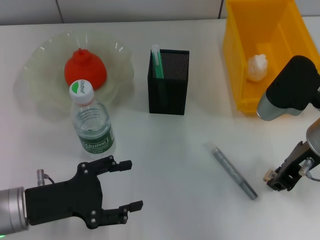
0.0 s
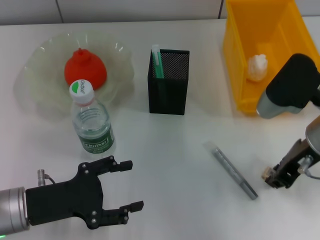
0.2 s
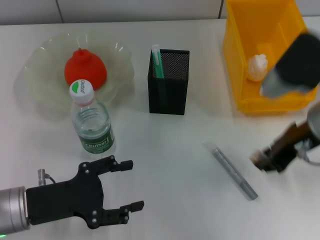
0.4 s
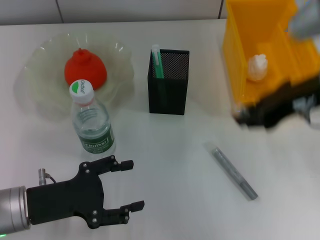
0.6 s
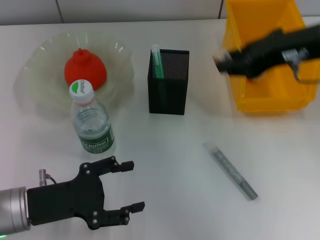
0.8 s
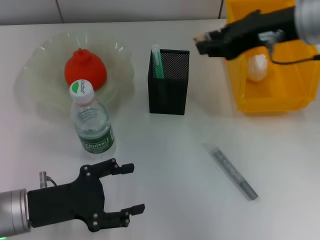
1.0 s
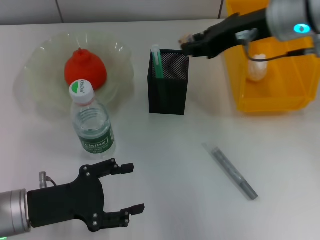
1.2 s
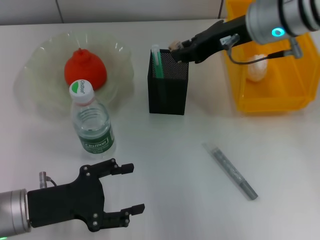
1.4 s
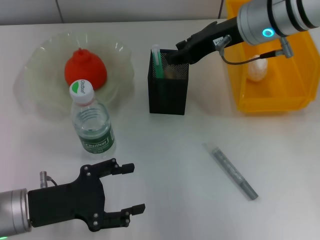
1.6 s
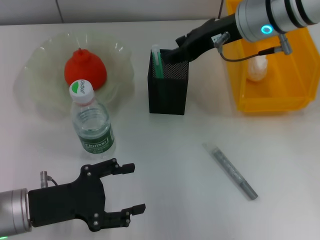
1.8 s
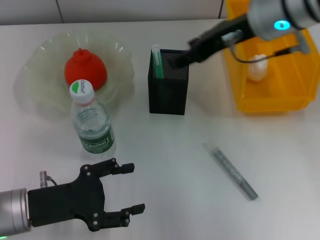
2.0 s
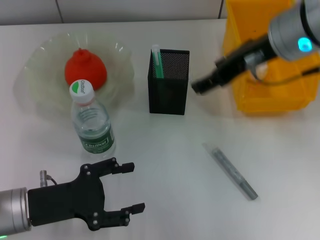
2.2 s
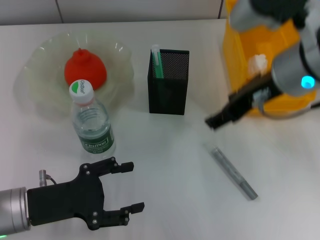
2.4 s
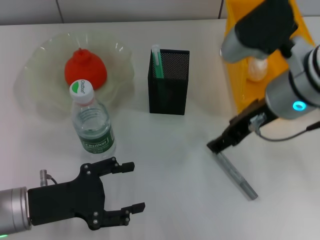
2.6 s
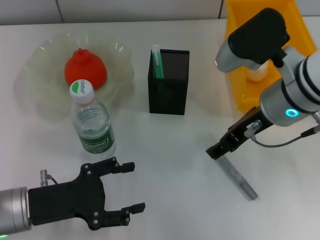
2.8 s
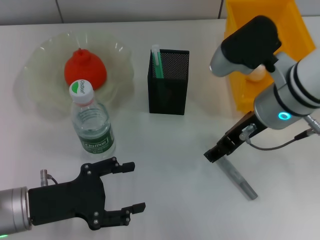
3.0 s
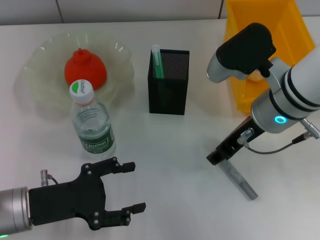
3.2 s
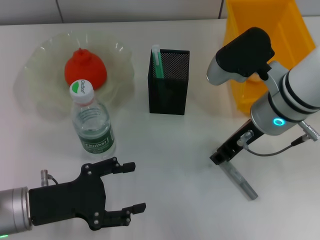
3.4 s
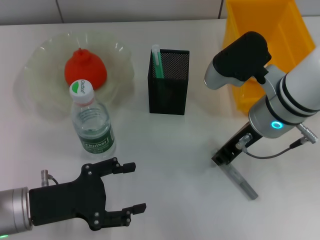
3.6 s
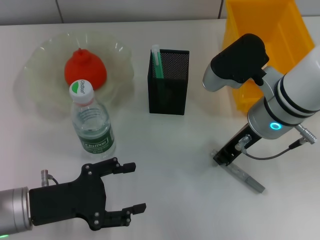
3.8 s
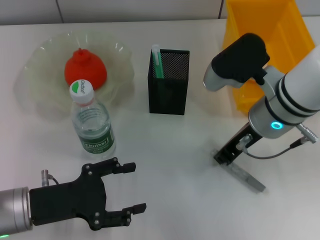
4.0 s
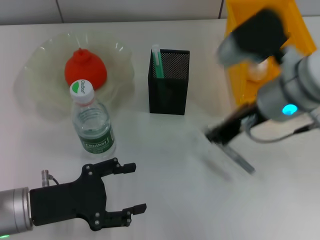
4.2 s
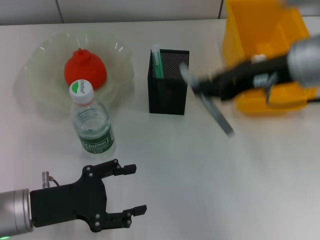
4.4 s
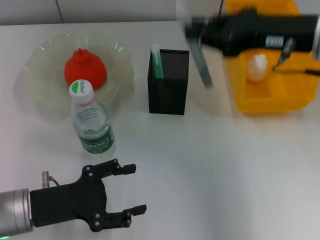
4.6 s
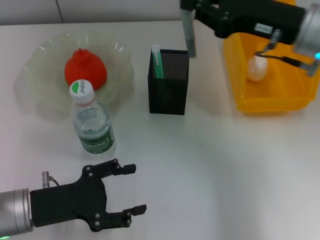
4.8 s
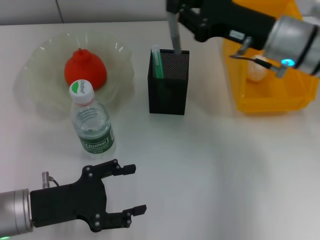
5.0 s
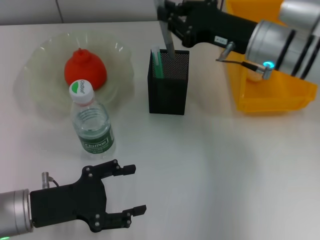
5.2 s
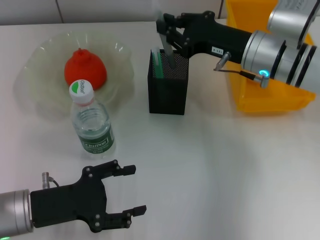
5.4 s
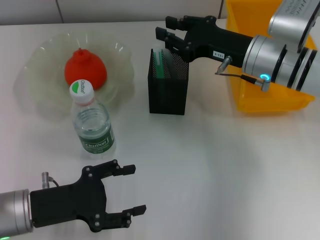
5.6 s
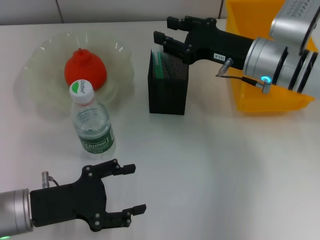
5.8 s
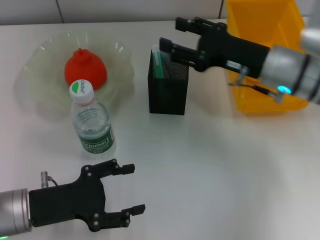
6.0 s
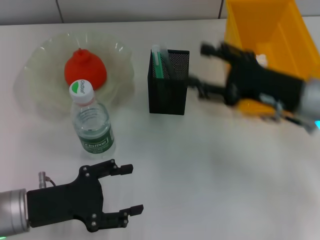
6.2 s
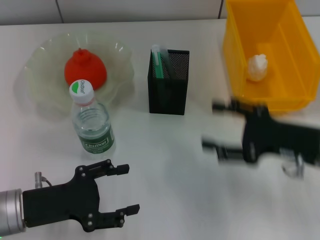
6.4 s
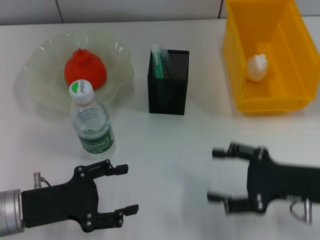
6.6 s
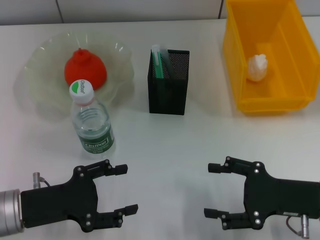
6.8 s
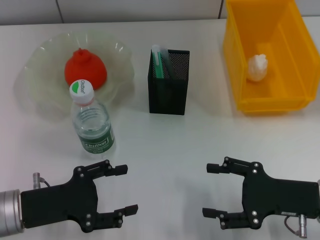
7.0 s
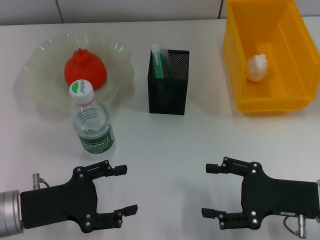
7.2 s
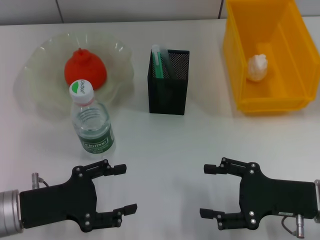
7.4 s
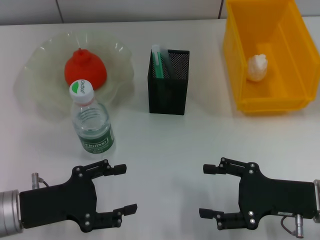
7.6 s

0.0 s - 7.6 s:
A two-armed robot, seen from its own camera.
Step, 0.2 s - 1.6 s: Put the eraser into the pen holder with the right hand.
Step, 1.8 s - 3.8 s: Grab the gray glue with the right hand.
Step, 4.0 s - 5.6 s: Place the gray glue into the pen holder with the right hand.
0.0 s - 1.6 s: The right gripper heads forward, to the left and upward, covering some 15 cm.
1.6 s - 3.0 s: The right gripper travels backward by some 10 cm, and opens.
3.0 s - 4.6 s: The right gripper shifts approximately 10 cm upward and to the right, and closes up.
4.6 s - 6.0 s: The right gripper shifts some 10 cm downward, and opens its fingers.
6.0 s - 7.6 s: The right gripper goes about 15 cm backward, downward and to the right, and opens.

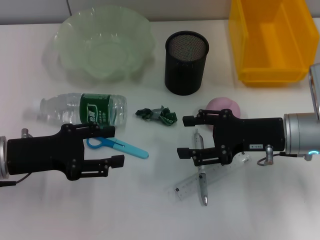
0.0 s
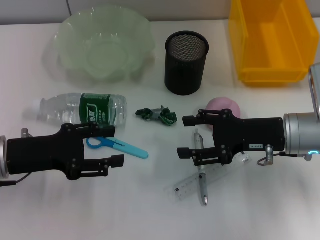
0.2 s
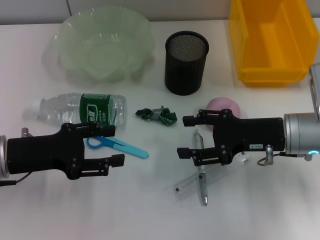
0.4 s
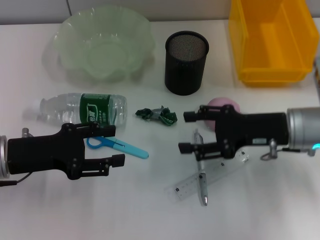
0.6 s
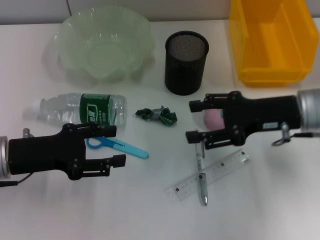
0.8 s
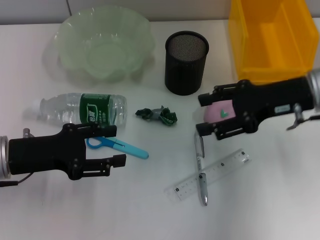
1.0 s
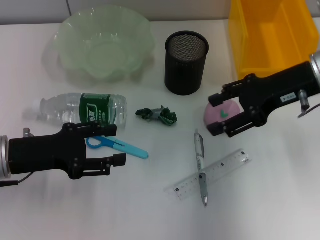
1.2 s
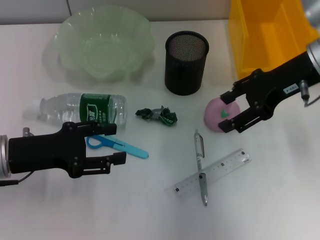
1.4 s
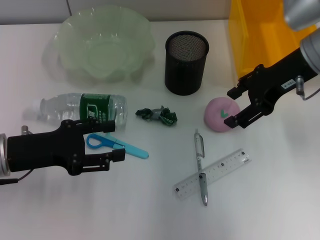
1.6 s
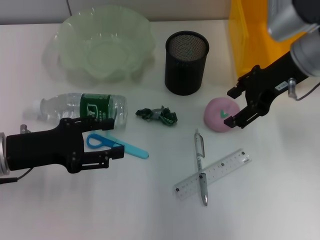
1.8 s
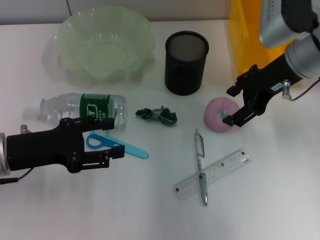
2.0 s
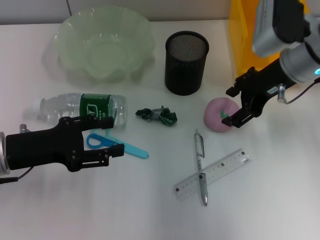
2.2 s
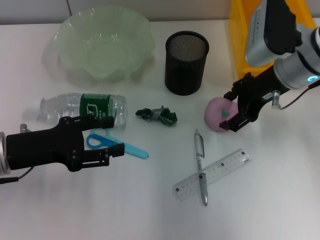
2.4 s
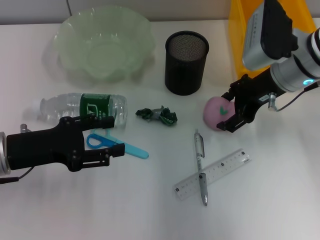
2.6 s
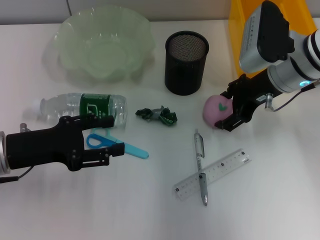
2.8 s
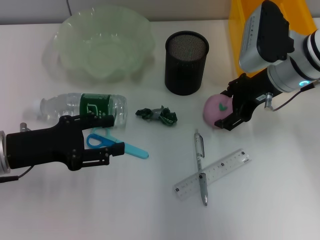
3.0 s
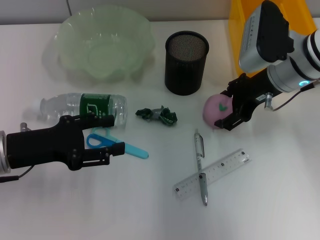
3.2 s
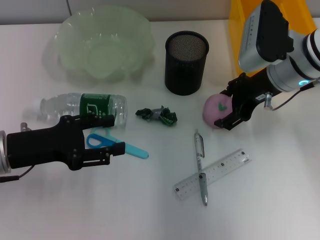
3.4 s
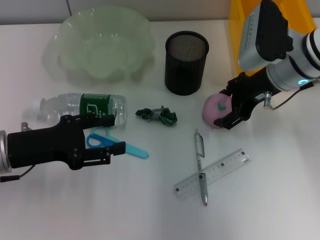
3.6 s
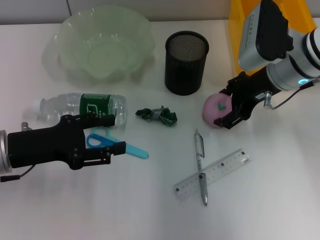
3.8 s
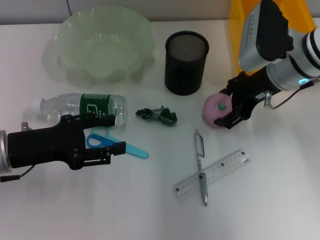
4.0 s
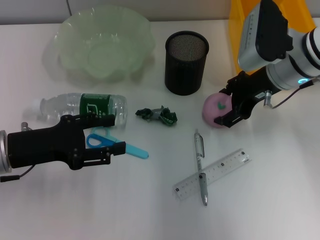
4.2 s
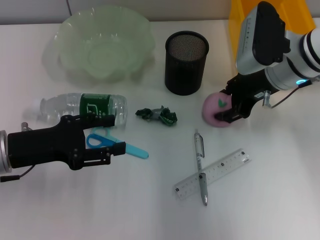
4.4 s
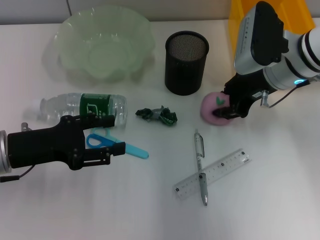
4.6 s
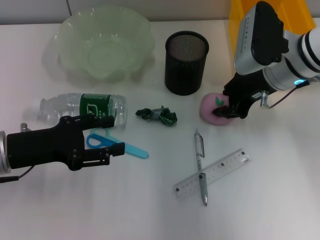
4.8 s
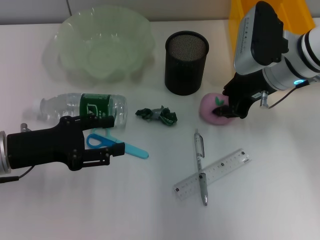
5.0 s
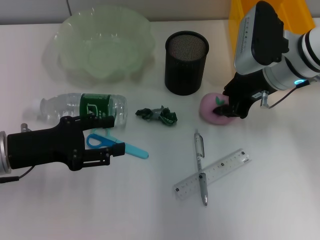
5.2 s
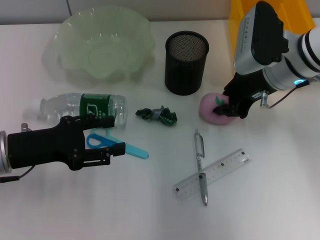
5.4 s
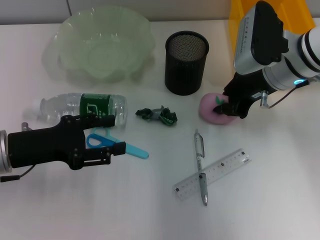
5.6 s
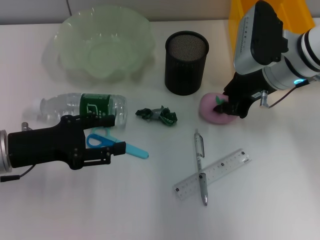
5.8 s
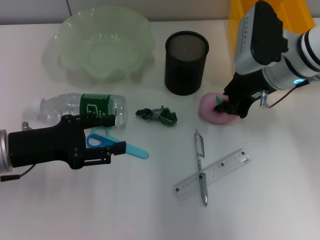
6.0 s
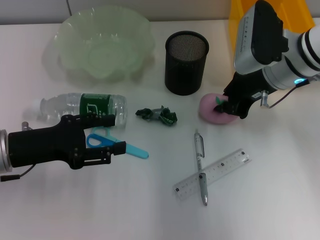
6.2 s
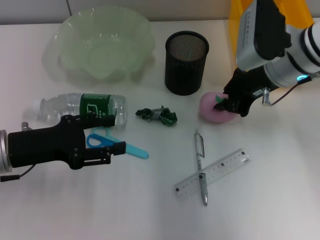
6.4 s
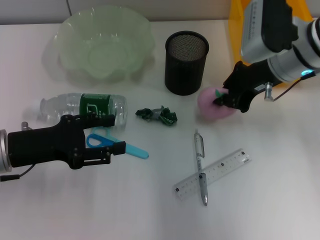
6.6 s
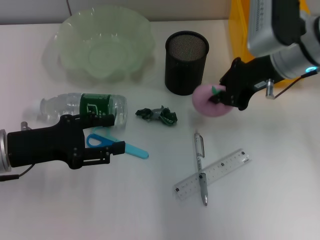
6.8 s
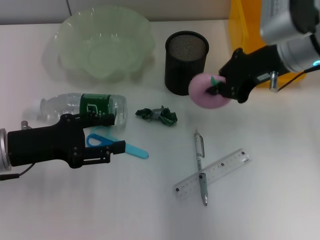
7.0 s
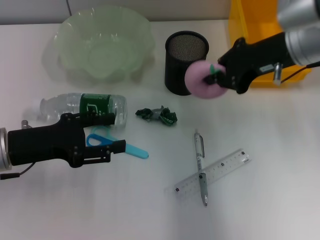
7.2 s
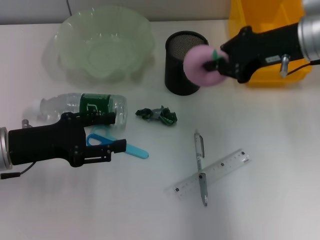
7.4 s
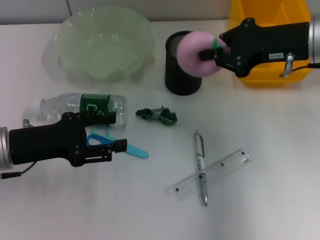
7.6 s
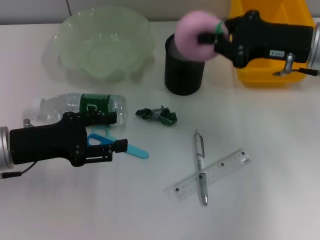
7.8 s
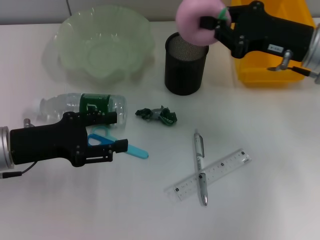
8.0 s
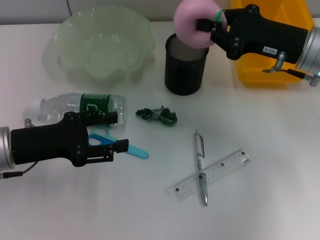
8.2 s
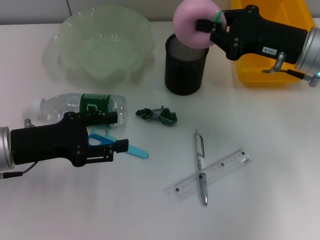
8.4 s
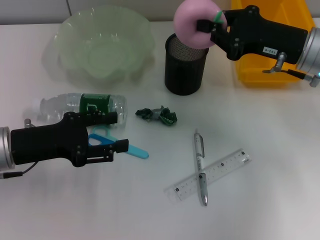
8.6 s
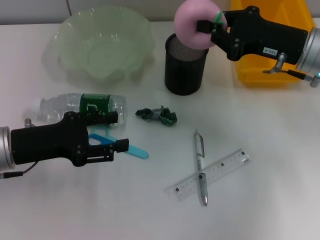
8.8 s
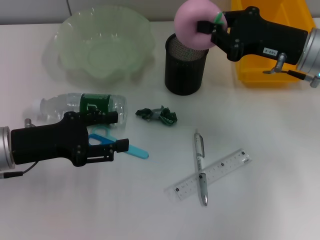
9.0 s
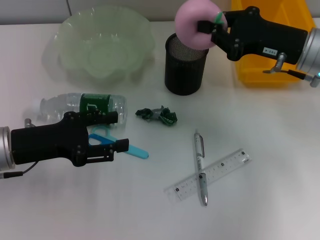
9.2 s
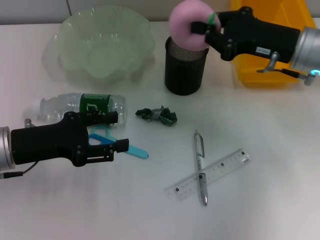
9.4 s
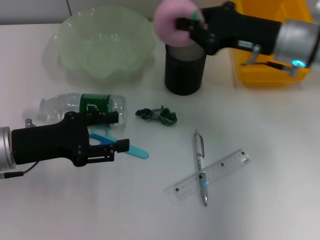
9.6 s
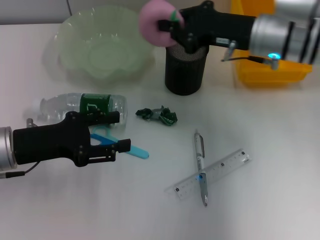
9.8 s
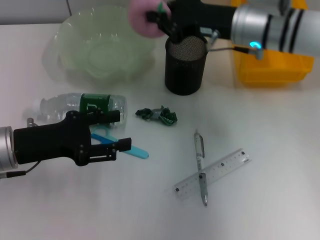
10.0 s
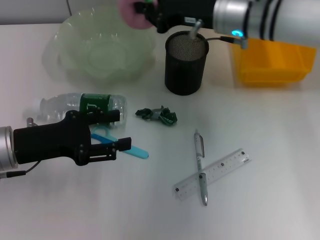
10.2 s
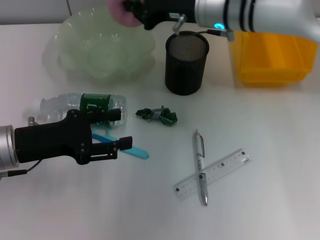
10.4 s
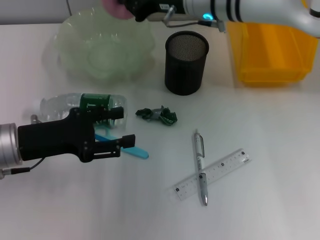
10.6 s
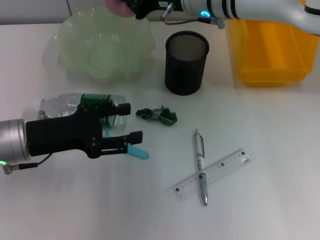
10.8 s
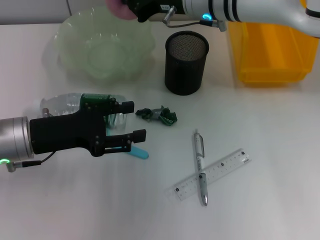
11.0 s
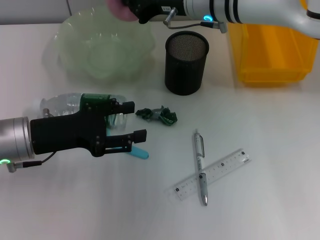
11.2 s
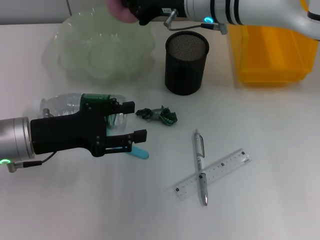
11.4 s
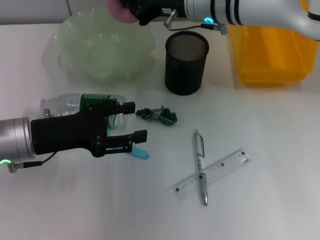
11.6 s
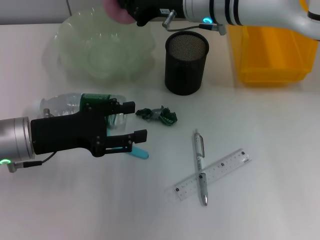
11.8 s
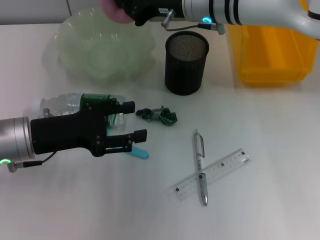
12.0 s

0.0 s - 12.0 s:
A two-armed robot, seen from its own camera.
Step, 0.0 s - 5.0 s: Grab the peach with the right hand.
0.0 s - 1.6 s: The right gripper is displaced upward and forward by approximately 15 cm.
1.6 s - 3.0 s: The right gripper moves downward, some 5 cm.
3.0 s - 4.4 s: Both grippers stay put.
4.4 s - 6.0 s: The right gripper closes its fingers.
6.0 s - 7.6 s: The right gripper is displaced upward by roughly 5 cm.
9.0 s - 10.4 s: The right gripper travels to the left and forward by roughly 15 cm.
10.4 s - 12.0 s: The grippers make only small movements.

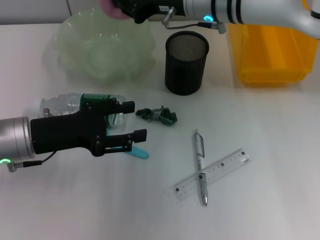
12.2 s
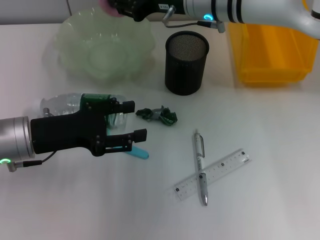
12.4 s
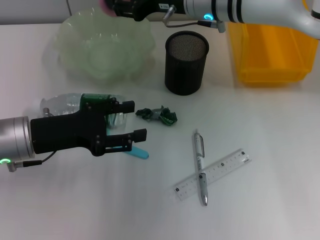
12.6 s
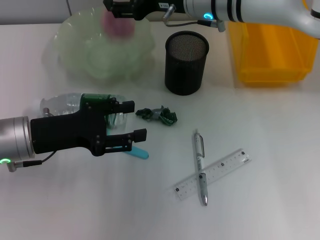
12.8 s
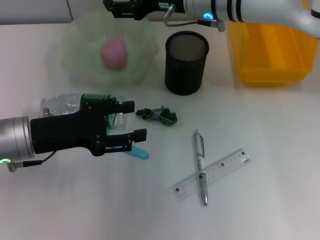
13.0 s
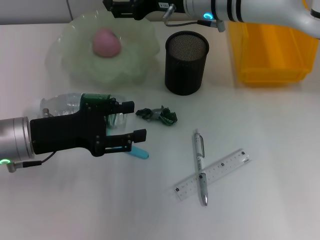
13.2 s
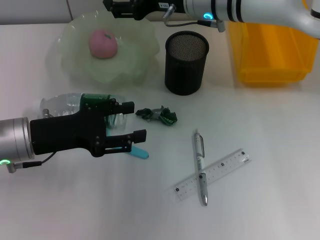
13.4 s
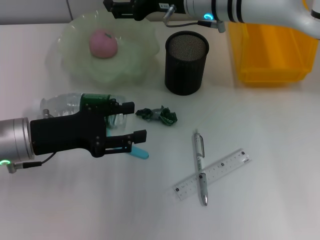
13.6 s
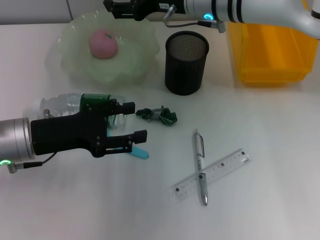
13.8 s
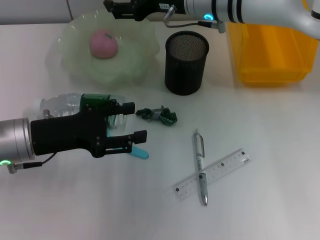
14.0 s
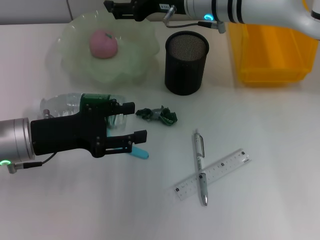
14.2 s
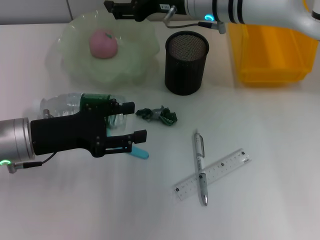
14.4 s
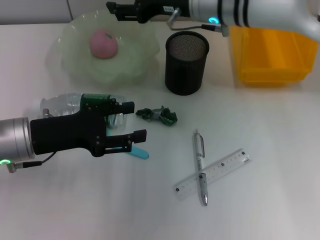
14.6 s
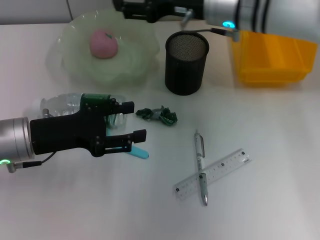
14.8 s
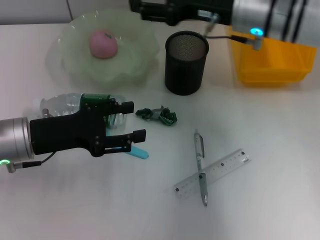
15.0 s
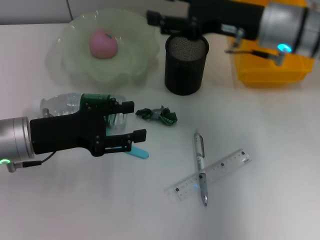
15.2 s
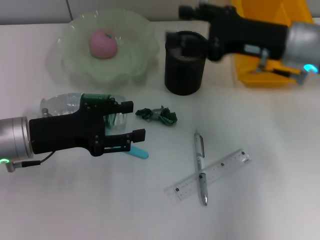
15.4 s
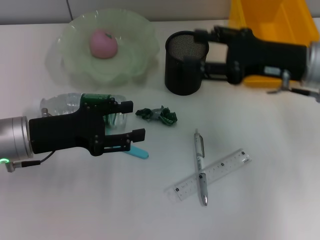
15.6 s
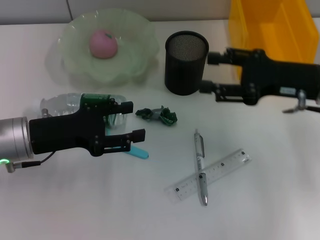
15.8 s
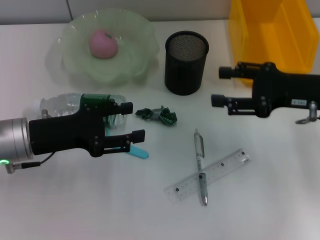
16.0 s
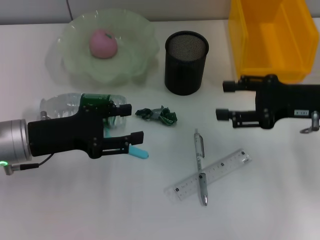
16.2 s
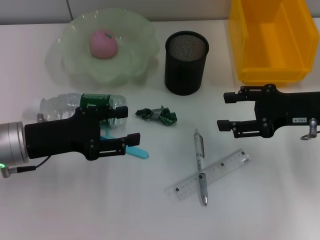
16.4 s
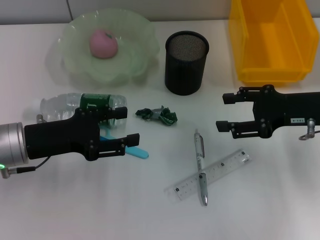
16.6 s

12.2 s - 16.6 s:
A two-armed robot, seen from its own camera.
12.2 s - 13.6 s: The right gripper opens its fingers.
13.6 s - 15.2 s: The right gripper moves to the right and backward, about 10 cm.
15.2 s - 16.6 s: The right gripper moves to the right, backward and downward, about 10 cm.
